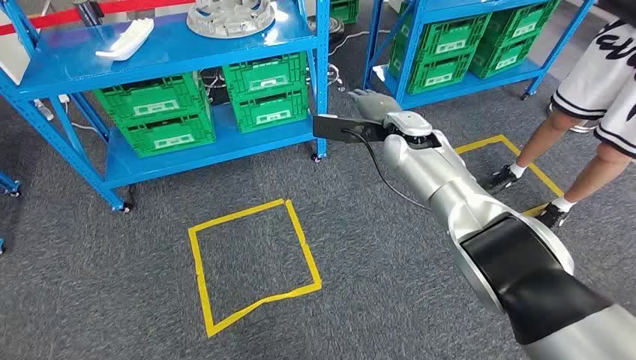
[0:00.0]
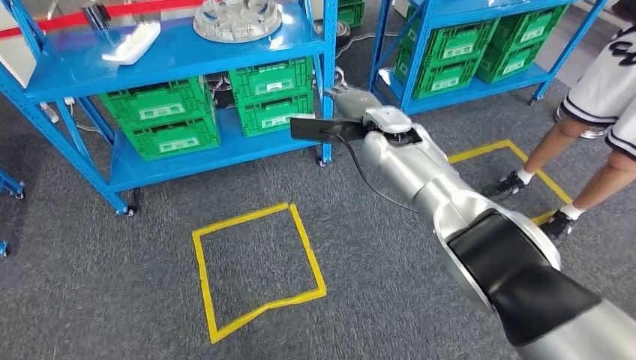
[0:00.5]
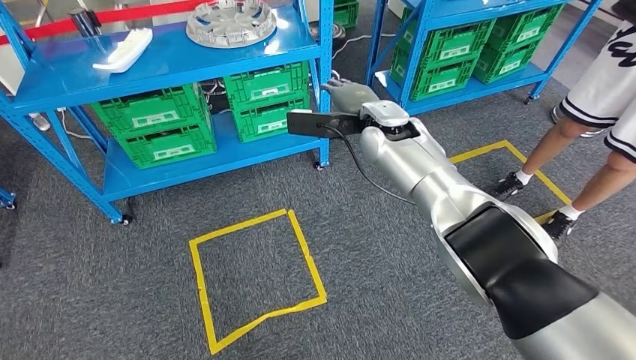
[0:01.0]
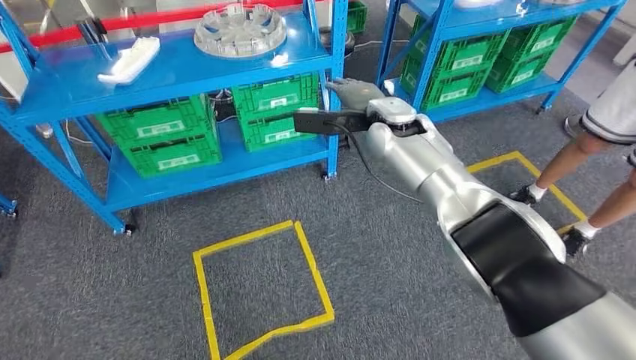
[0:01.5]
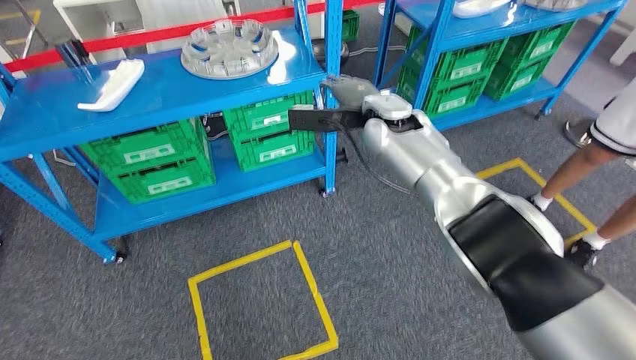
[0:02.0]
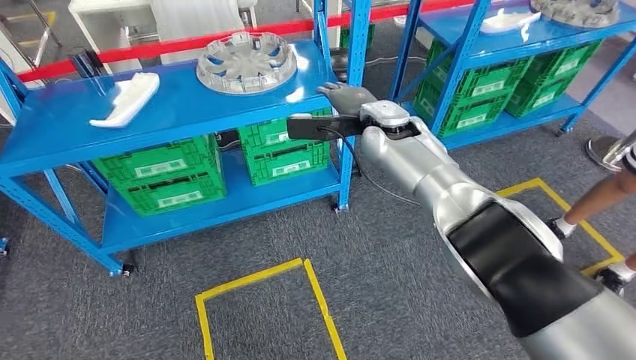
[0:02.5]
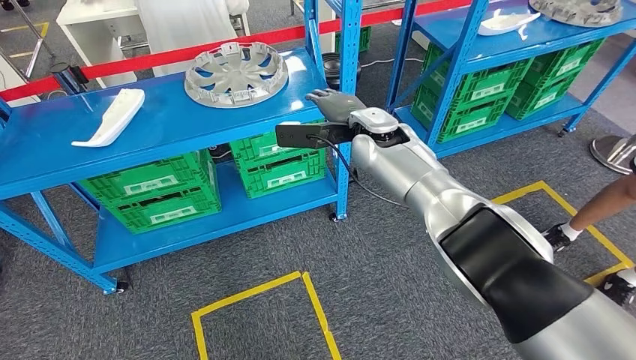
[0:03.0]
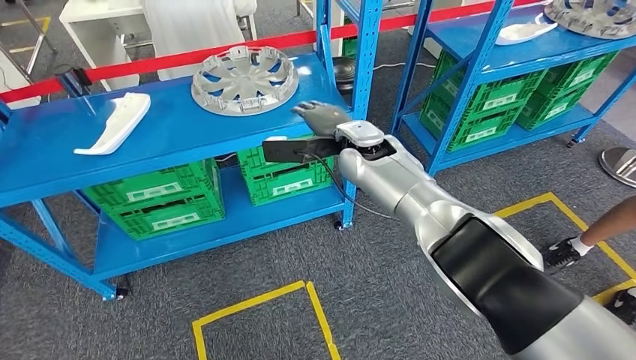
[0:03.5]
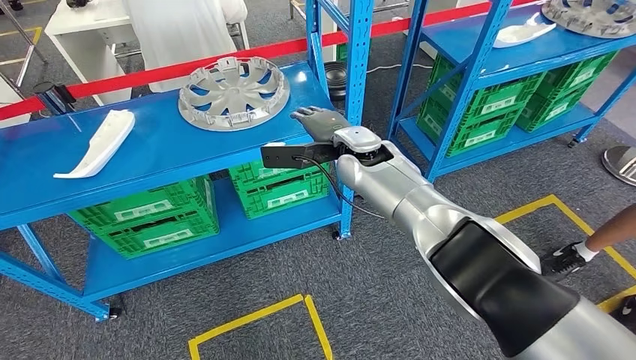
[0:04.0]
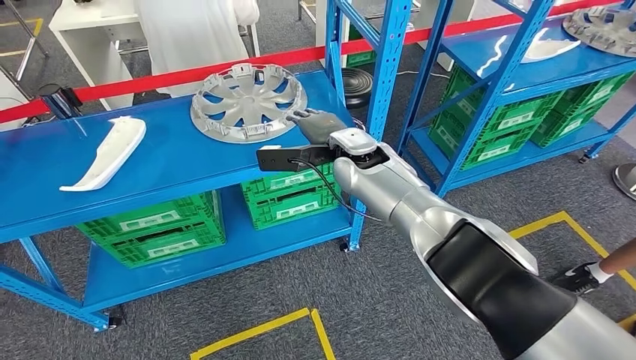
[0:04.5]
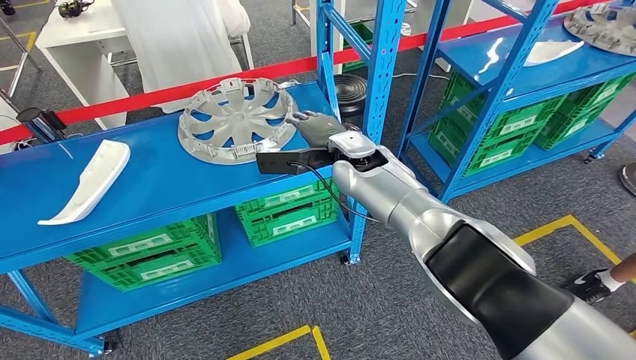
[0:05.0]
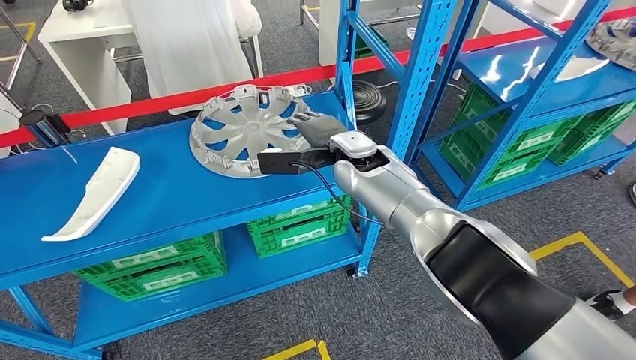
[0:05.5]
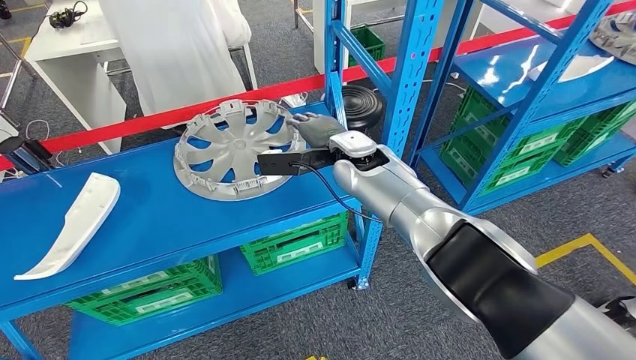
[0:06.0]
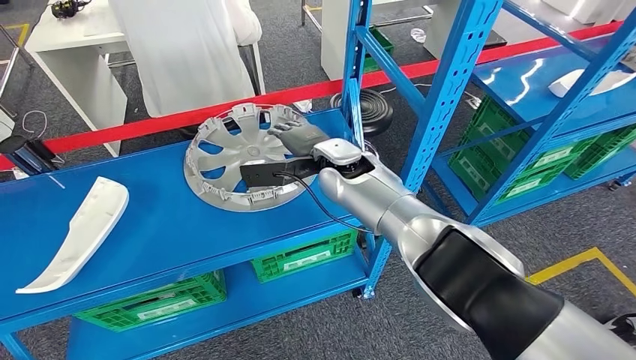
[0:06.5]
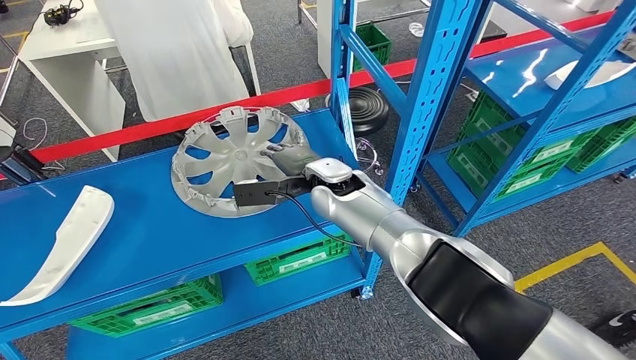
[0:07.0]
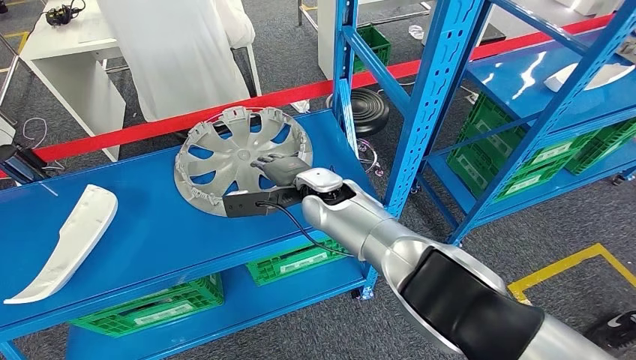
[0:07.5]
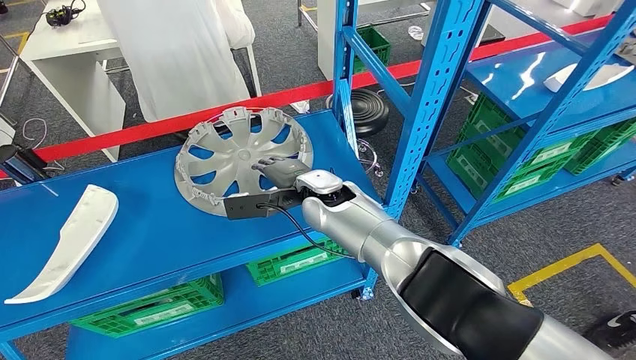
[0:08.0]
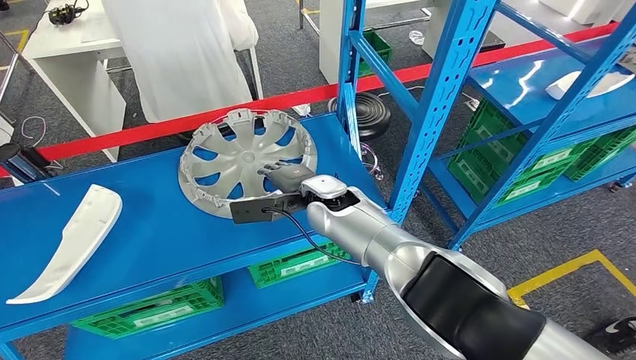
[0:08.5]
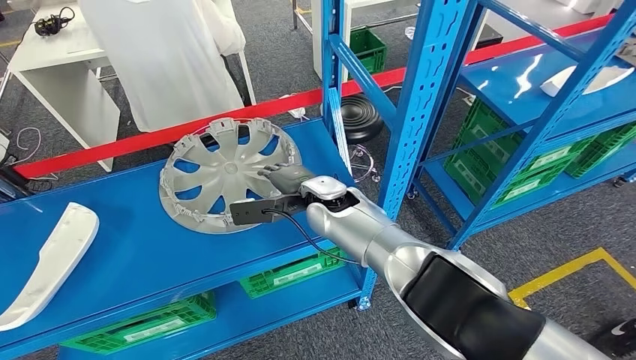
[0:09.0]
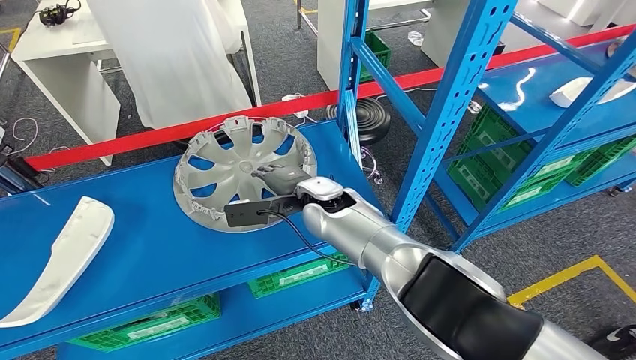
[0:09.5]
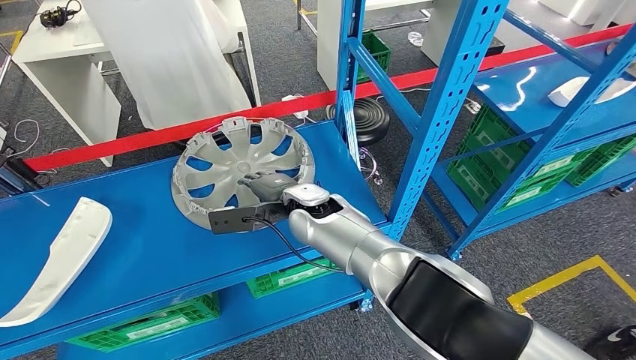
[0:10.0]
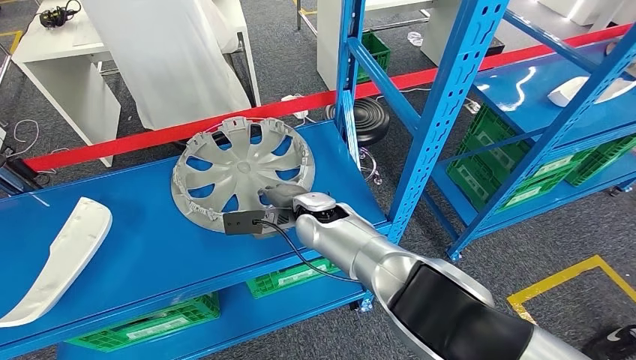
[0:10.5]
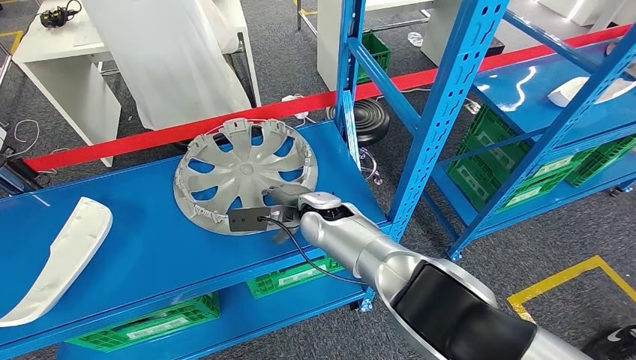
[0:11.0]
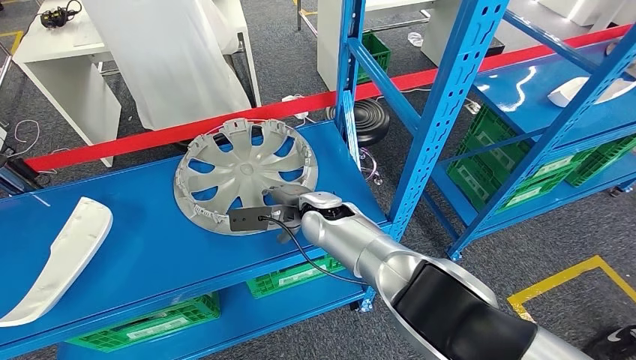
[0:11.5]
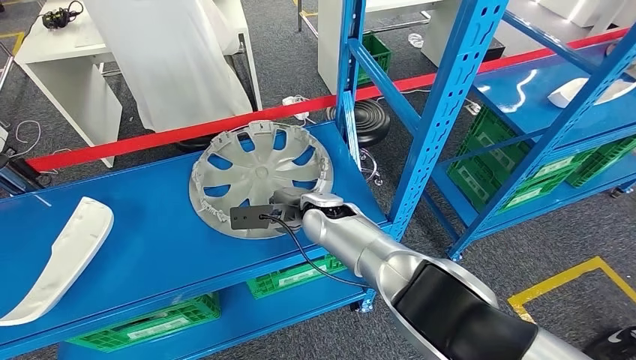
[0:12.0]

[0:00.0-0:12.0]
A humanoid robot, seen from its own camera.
0:10.0 to 0:12.0: There are only small adjustments of the hands.

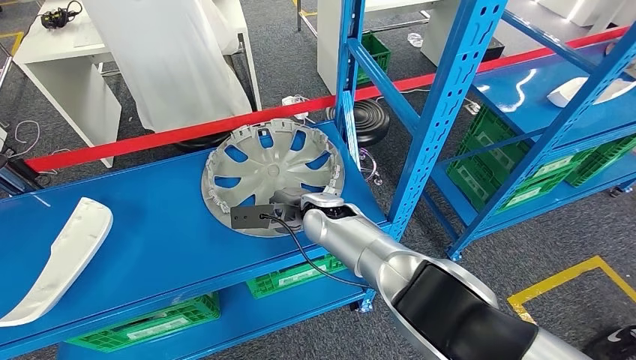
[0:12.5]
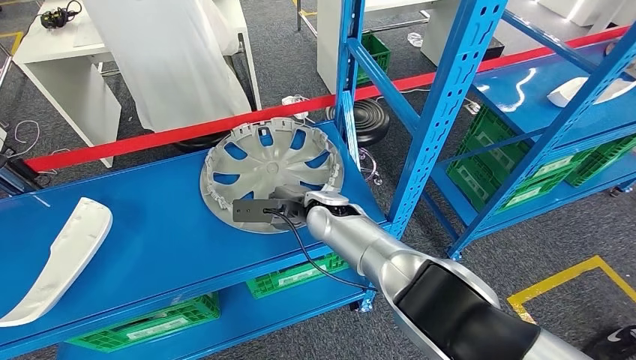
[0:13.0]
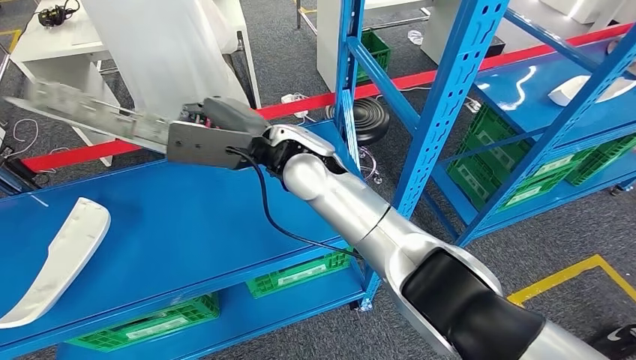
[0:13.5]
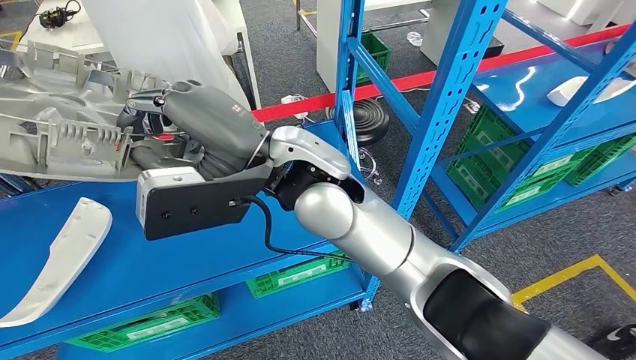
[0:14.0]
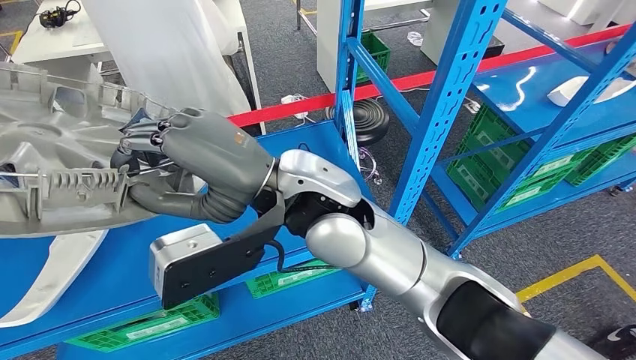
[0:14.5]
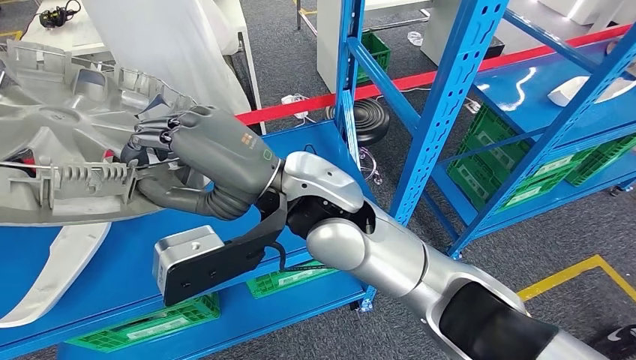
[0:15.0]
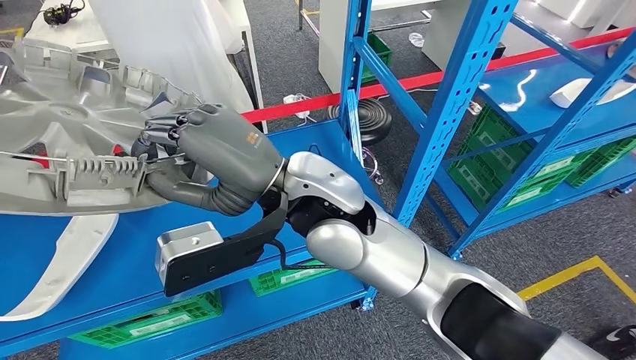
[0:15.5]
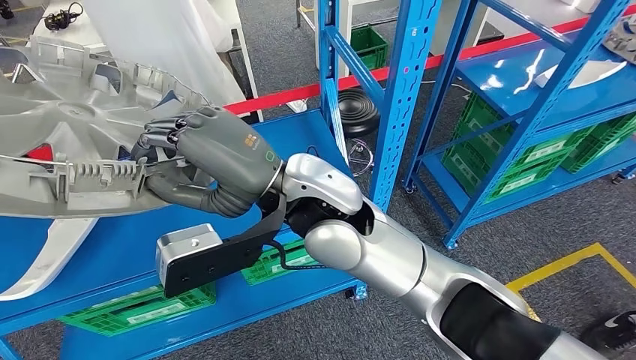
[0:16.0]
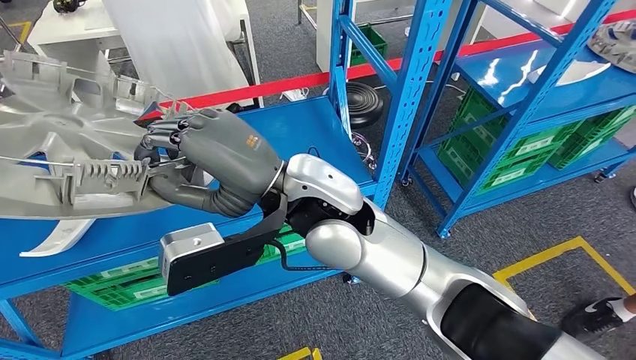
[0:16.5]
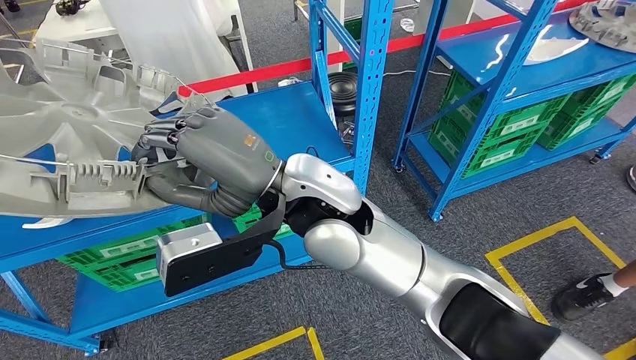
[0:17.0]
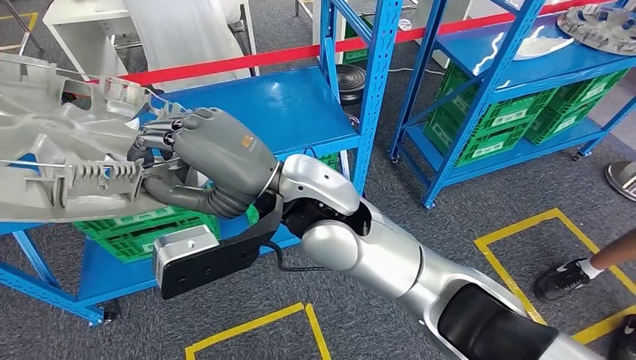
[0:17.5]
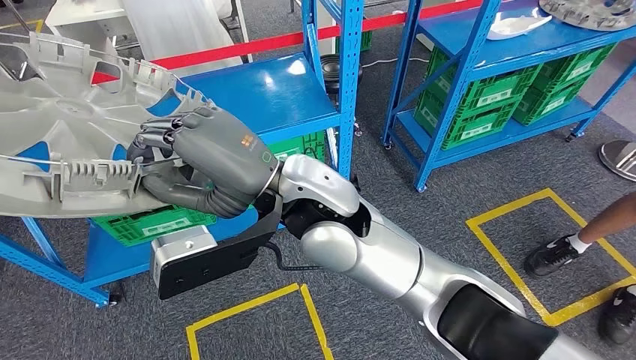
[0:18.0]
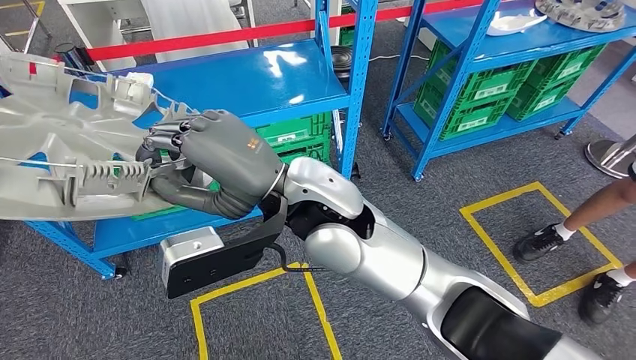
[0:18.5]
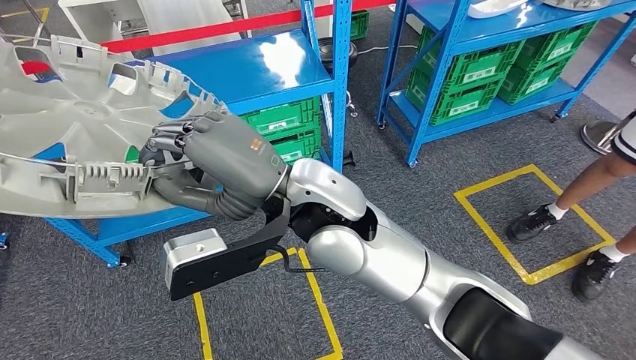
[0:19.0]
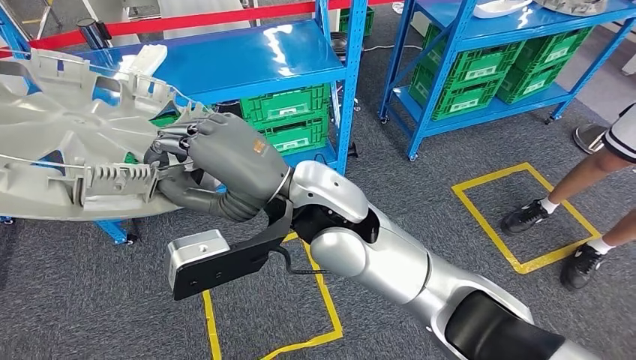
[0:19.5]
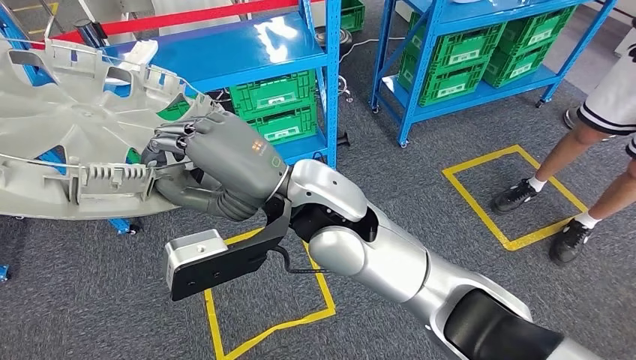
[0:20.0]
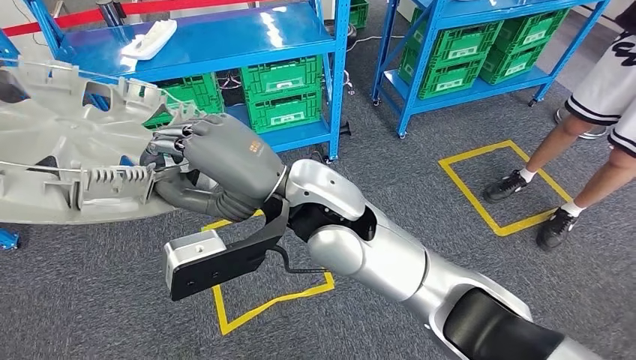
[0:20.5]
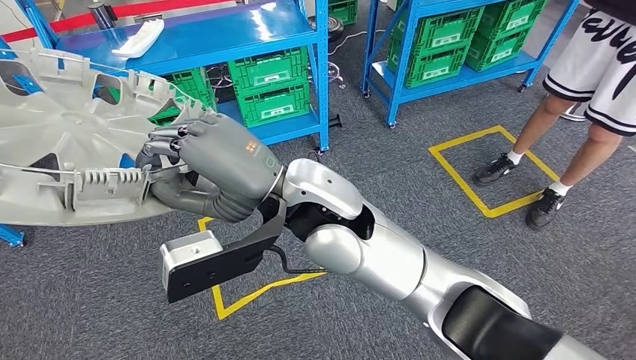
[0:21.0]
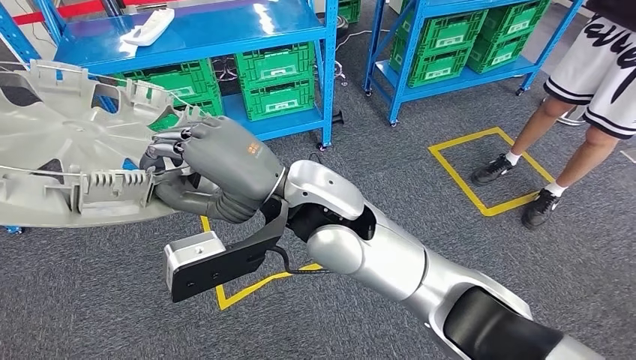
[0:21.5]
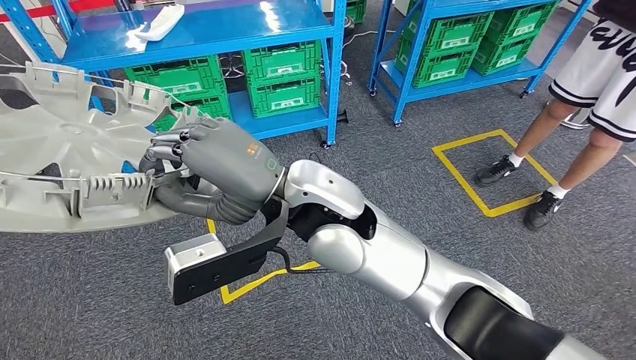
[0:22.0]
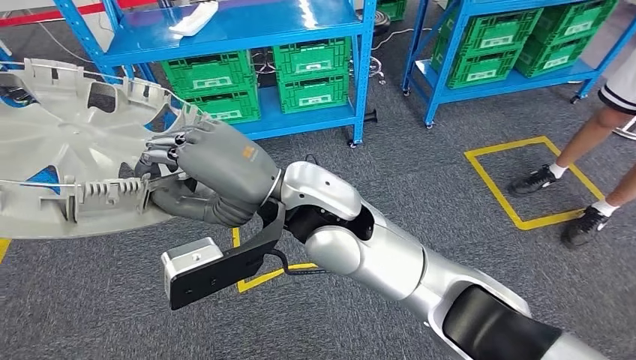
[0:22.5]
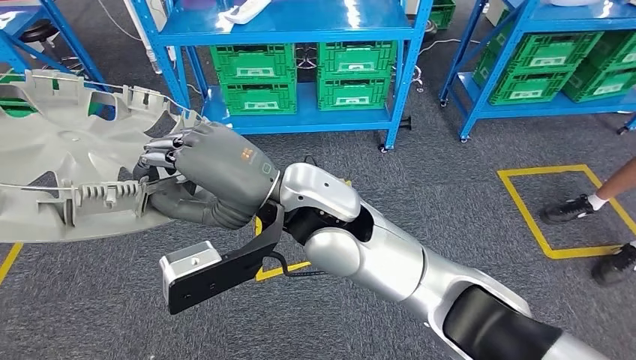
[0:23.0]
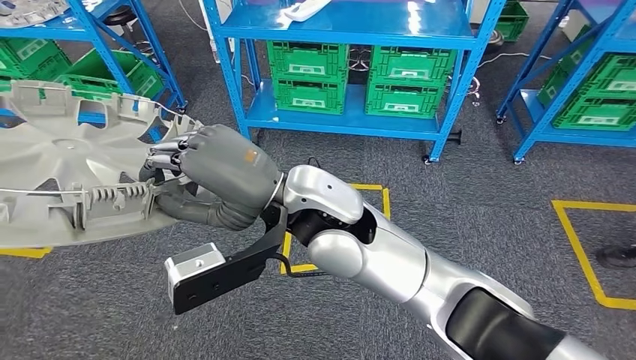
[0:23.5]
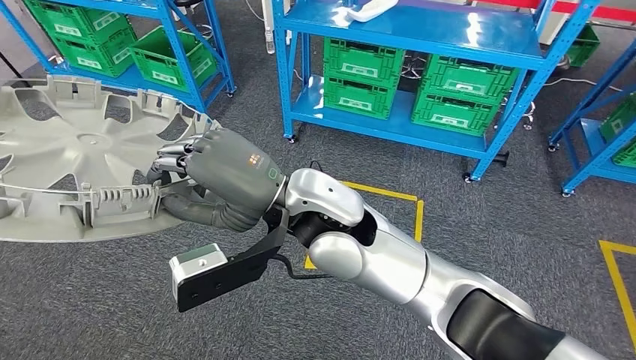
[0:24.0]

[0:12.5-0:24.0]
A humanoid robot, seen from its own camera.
Step, 0:12.5 to 0:14.5: Pick up the small component from the shelf.
